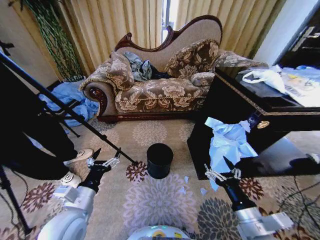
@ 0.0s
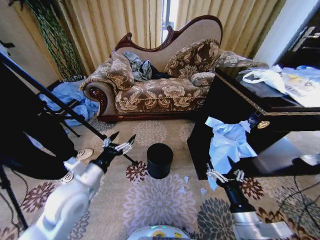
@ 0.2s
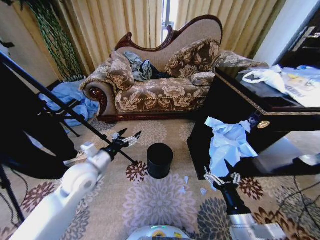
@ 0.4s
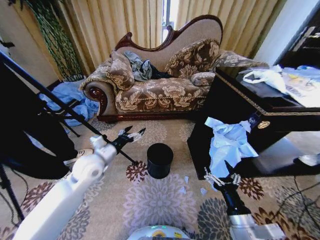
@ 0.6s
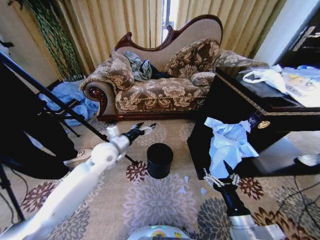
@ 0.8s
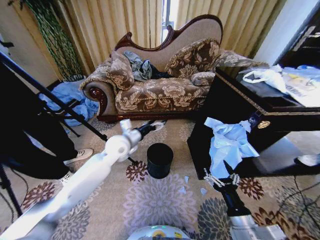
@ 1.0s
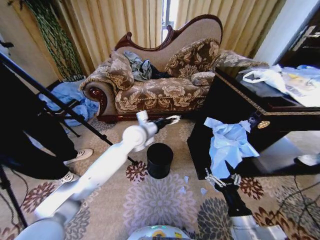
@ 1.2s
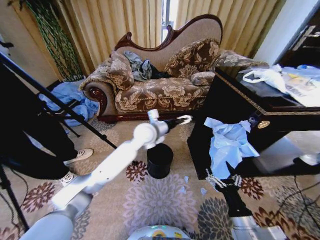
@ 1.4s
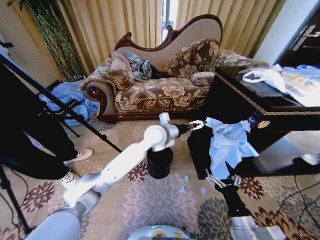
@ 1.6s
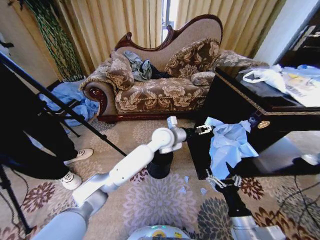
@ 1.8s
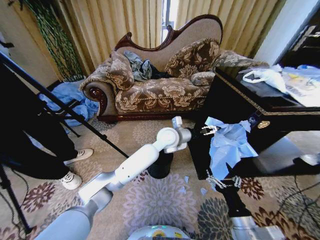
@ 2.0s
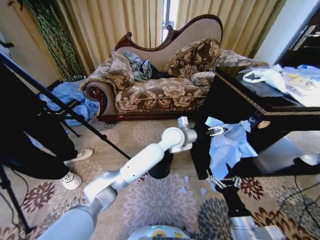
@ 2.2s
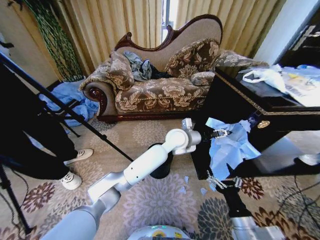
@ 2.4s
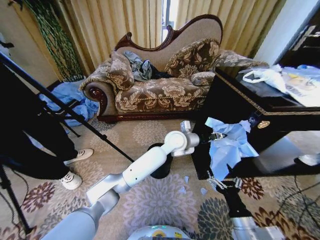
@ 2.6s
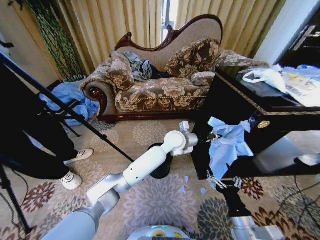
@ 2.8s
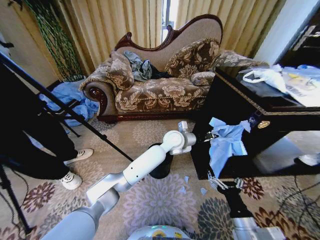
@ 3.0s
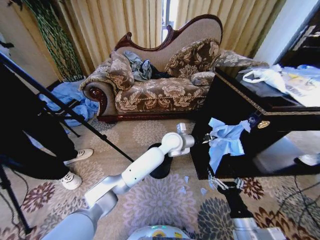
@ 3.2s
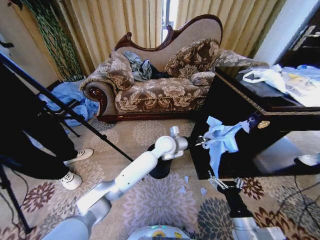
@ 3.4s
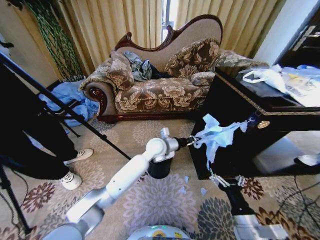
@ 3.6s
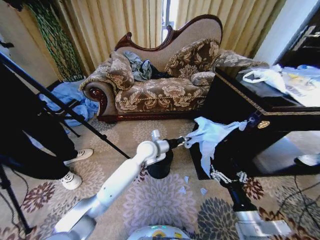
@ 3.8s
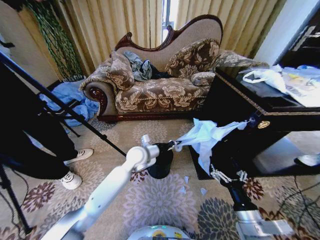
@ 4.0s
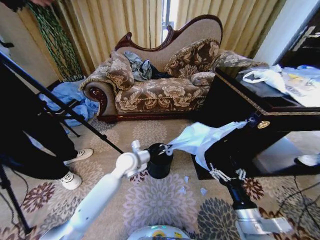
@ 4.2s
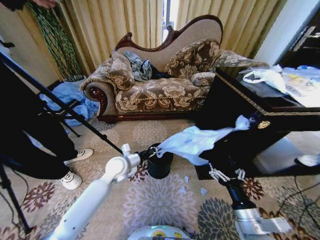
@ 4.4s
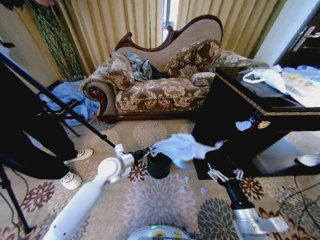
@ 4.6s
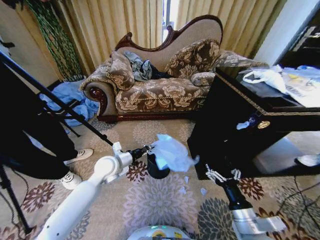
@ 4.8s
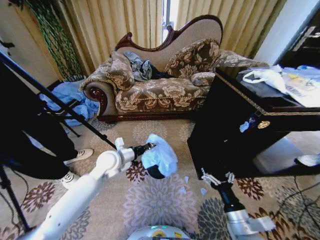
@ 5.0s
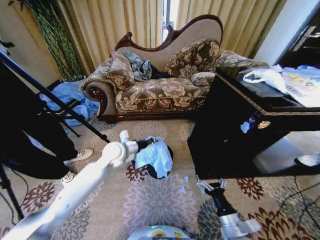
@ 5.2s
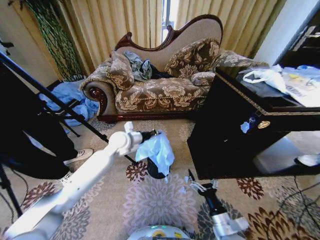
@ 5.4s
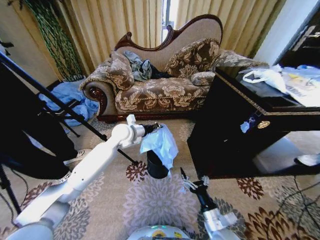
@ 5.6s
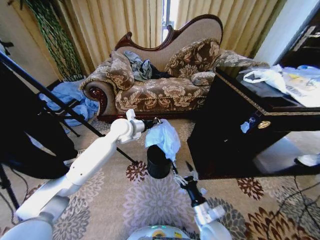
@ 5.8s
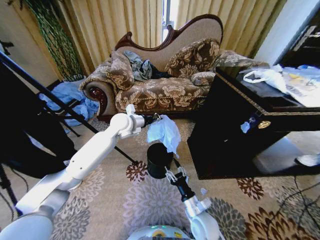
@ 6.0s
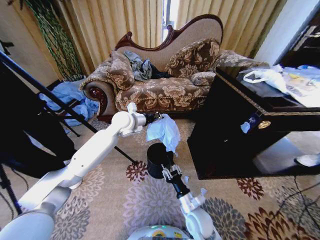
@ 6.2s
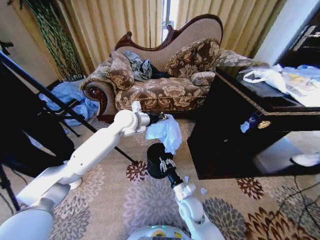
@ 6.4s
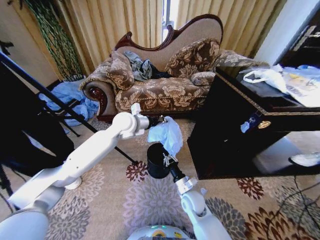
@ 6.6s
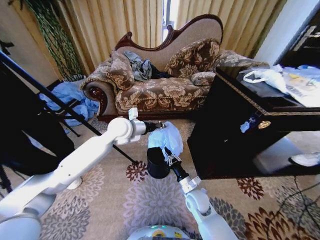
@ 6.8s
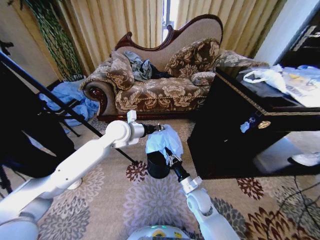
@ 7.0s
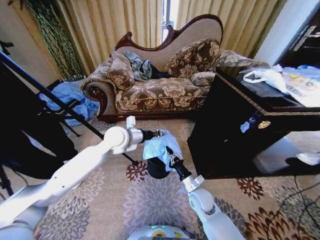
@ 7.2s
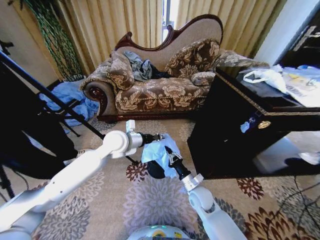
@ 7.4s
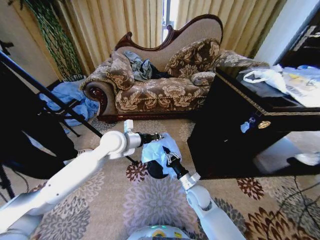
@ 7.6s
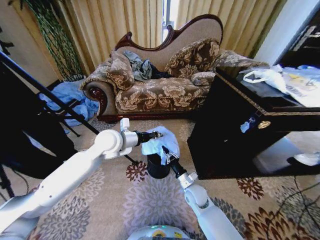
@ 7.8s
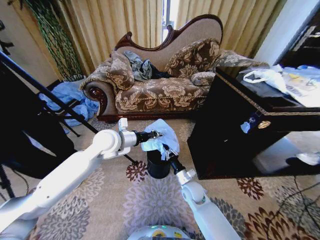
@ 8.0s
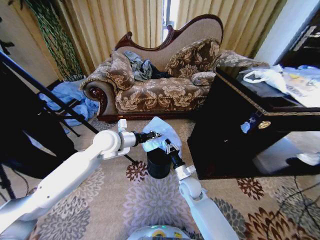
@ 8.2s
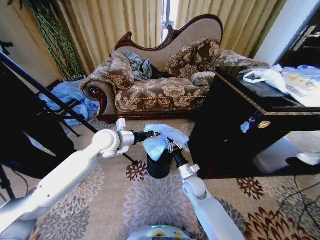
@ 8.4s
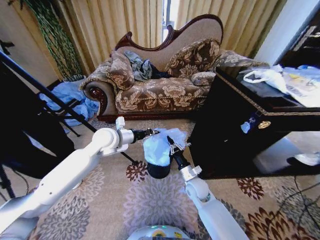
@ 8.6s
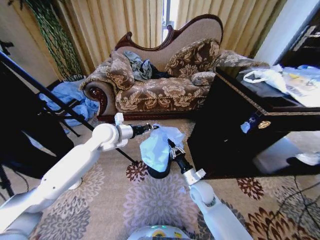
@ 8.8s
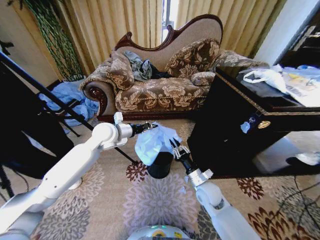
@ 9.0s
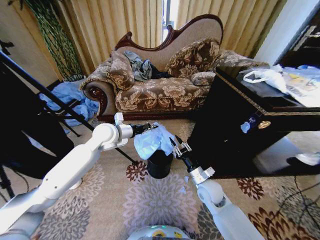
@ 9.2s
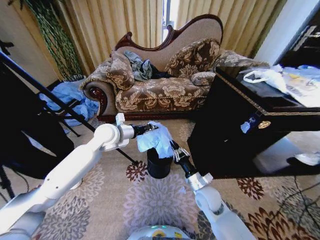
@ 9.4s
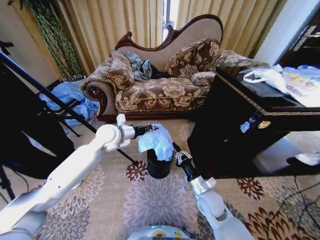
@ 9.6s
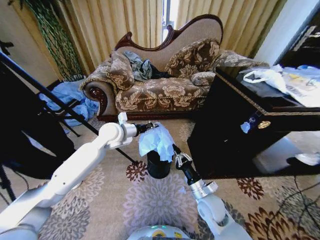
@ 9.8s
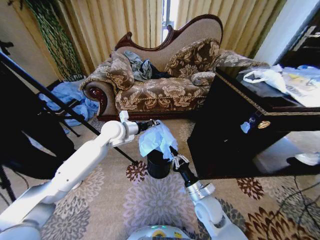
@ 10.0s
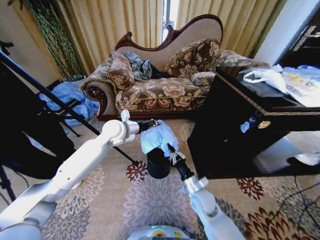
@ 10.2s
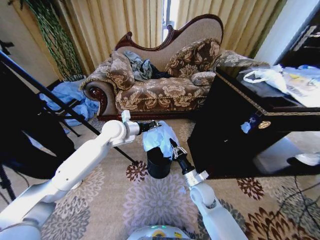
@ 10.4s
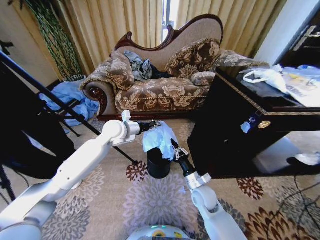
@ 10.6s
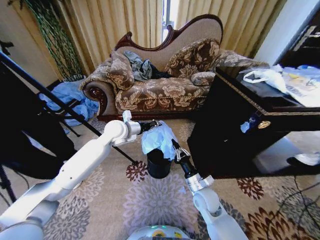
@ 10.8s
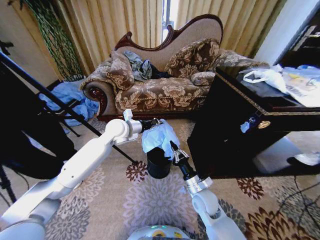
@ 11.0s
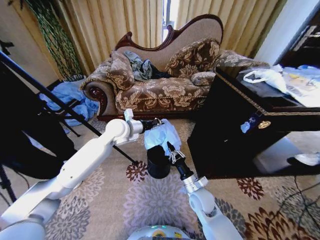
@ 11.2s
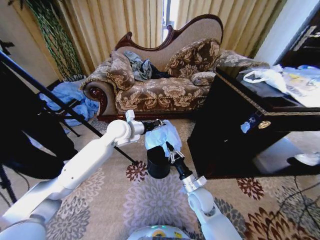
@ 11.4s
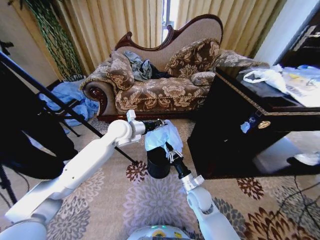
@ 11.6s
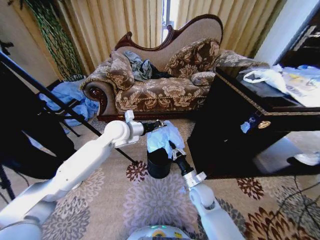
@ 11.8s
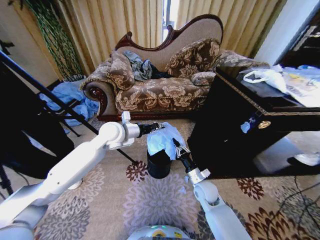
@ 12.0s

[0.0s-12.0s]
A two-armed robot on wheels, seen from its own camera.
Task of the whole recording: Place a garbage bag over the trash bin.
1.6s to 3.0s: The left gripper moves to the right, about 10 cm, and closes up.
3.0s to 4.4s: The left gripper is displaced to the left by roughly 25 cm.
4.4s to 6.0s: The right gripper is displaced to the left, downward and forward by roughly 15 cm, and closes; the left gripper moves upward and forward, some 20 cm.
6.0s to 7.6s: The left gripper travels backward by some 10 cm. Meanwhile the right gripper heads forward, covering approximately 10 cm, and closes up.
7.6s to 9.0s: The right gripper changes place by some 5 cm; the left gripper moves some 5 cm.
9.0s to 12.0s: The grippers stay close to where they were, moving slightly.

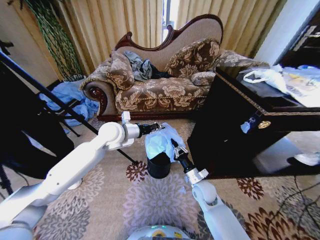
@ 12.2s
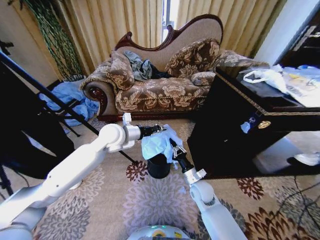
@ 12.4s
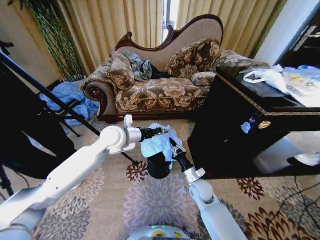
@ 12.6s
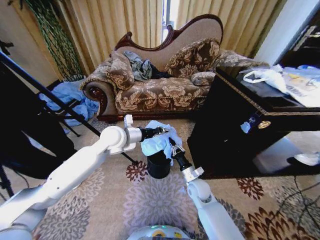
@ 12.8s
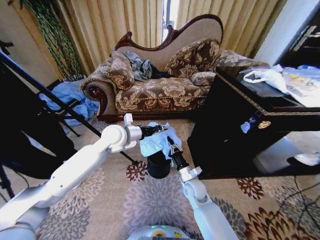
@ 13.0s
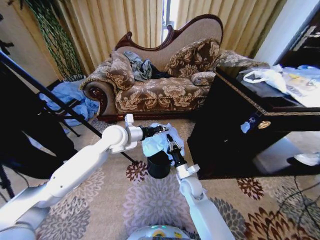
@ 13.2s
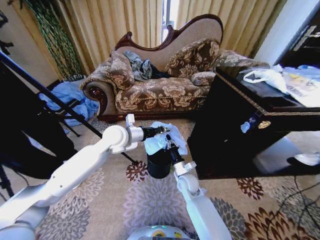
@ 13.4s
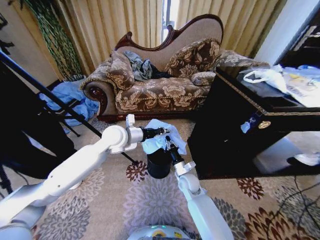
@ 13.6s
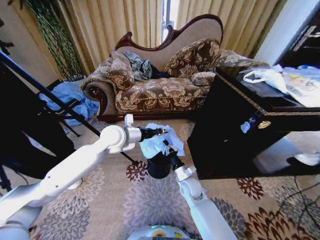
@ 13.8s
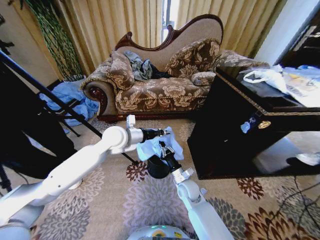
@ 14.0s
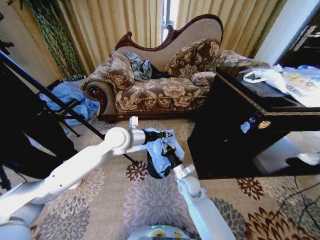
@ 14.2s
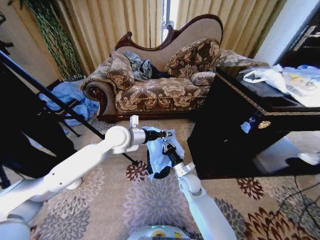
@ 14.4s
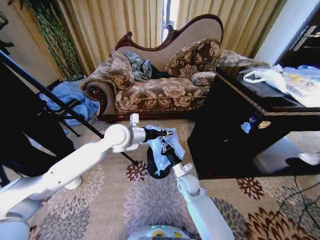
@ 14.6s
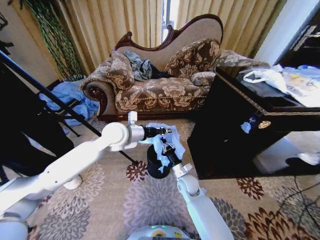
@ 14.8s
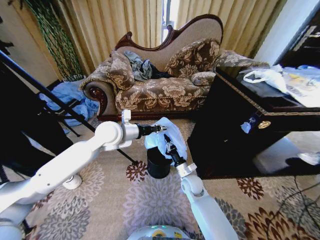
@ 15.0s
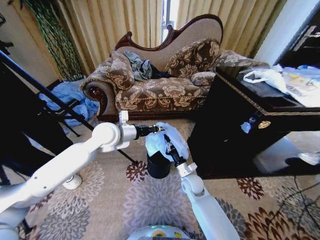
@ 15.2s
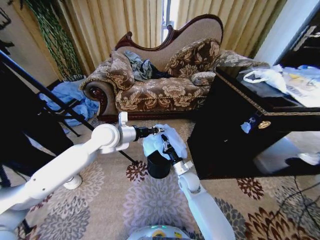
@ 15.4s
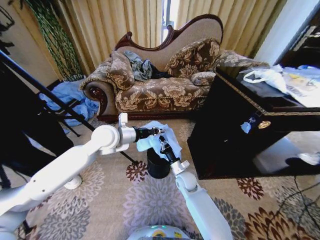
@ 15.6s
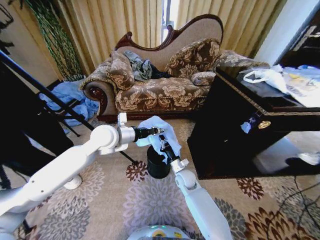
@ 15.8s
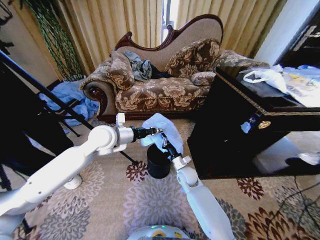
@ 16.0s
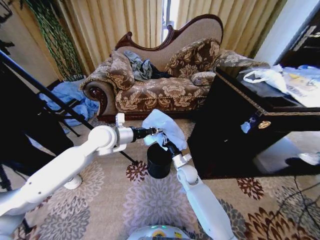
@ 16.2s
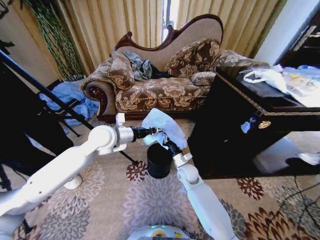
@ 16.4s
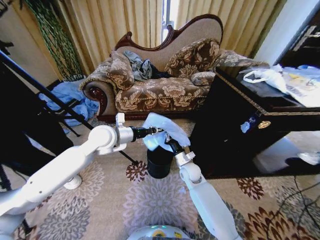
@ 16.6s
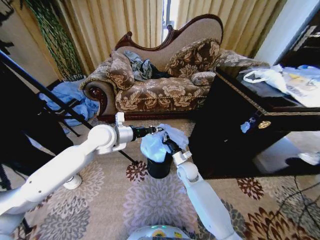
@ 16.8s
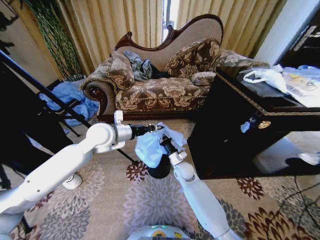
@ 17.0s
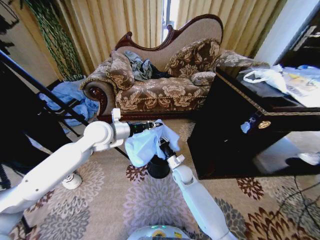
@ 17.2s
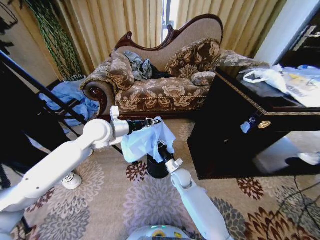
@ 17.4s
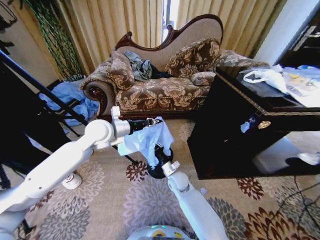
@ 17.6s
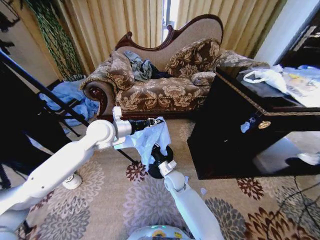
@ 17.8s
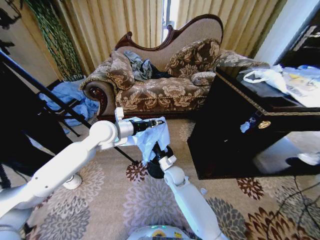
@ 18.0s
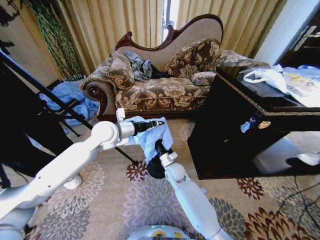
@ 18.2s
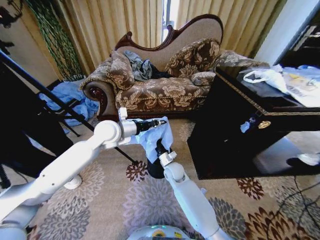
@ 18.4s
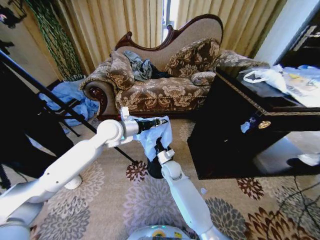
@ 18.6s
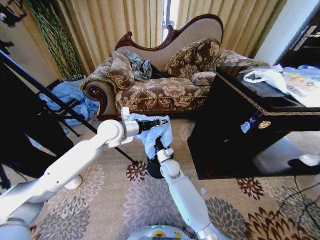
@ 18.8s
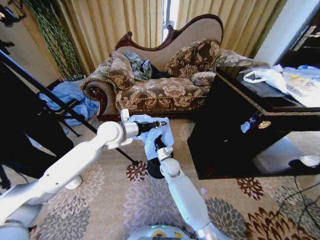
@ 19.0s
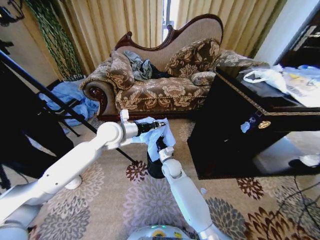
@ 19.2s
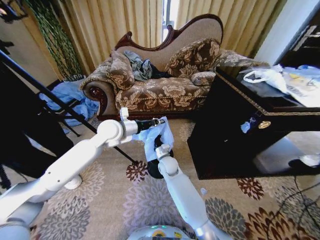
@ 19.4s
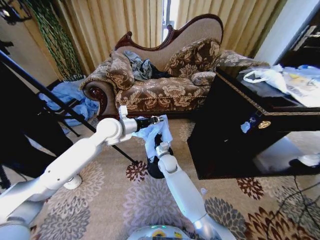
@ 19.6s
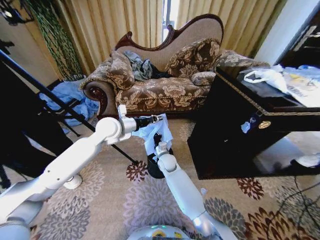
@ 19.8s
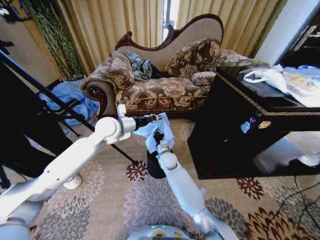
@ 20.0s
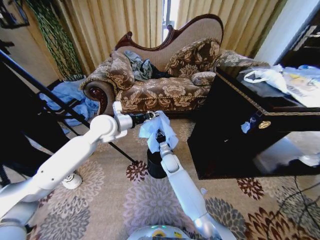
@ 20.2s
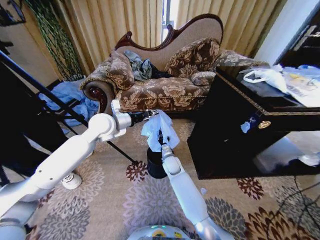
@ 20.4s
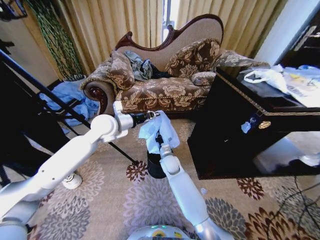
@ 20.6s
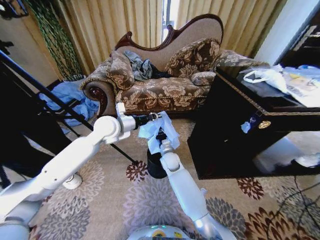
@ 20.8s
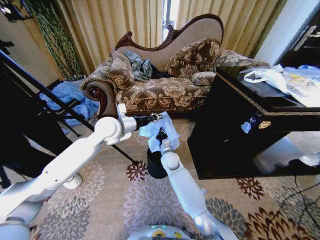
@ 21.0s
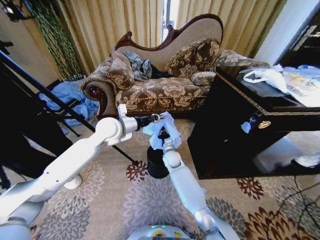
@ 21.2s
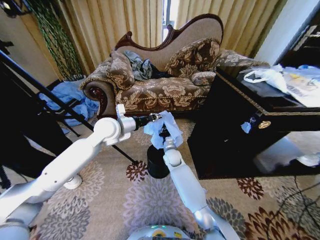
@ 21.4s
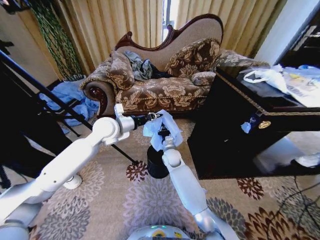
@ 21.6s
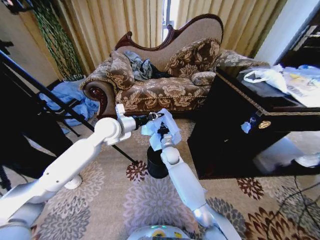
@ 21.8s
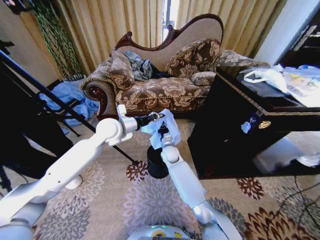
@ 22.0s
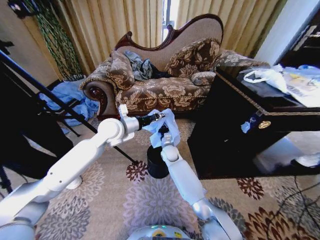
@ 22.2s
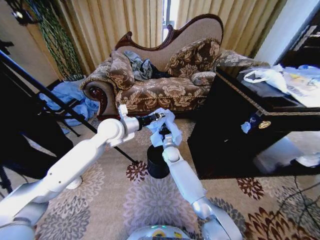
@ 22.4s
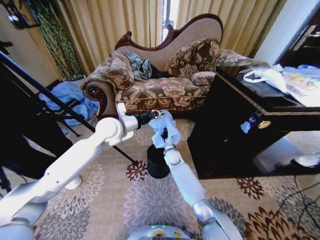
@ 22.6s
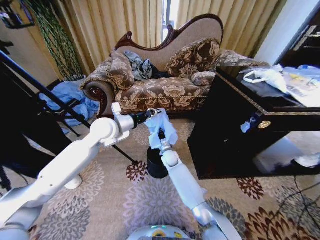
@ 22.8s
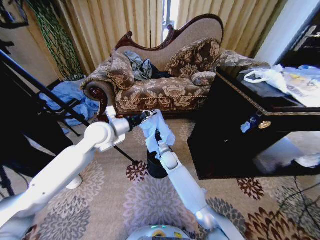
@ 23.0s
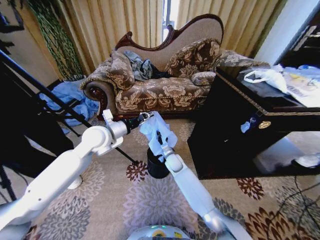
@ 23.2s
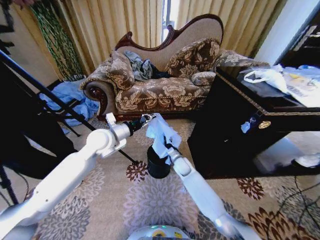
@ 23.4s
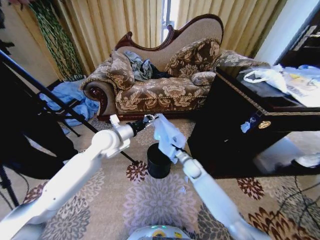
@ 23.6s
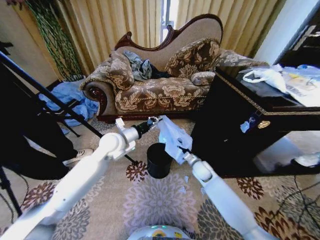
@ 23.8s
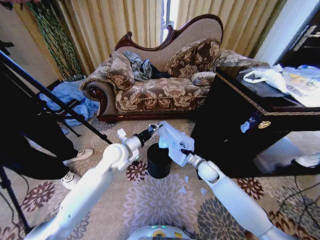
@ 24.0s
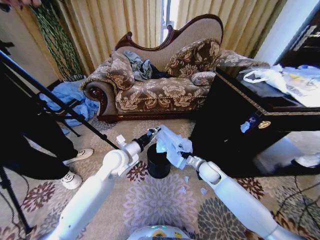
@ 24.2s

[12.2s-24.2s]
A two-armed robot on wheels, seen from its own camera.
Task of the whole recording: Place a garbage bag over the trash bin.
12.2s to 13.8s: The right gripper travels to the left by roughly 5 cm.
13.8s to 15.2s: The grippers stay close to where they were, moving slightly.
15.2s to 16.6s: The right gripper shifts by some 5 cm.
16.6s to 18.2s: The right gripper heads to the left, covering approximately 10 cm.
18.2s to 19.8s: The right gripper heads forward, covering roughly 5 cm.
19.8s to 21.2s: The grippers move only a little.
21.2s to 22.6s: The grippers make only small movements.
22.6s to 24.2s: The left gripper moves downward and backward, about 15 cm; the right gripper is displaced to the right and backward by roughly 20 cm.
